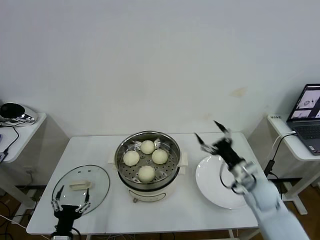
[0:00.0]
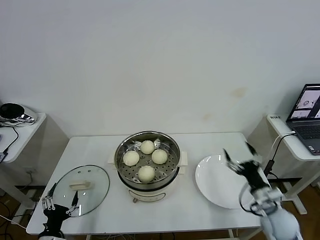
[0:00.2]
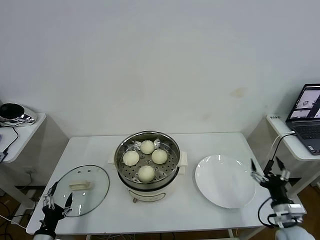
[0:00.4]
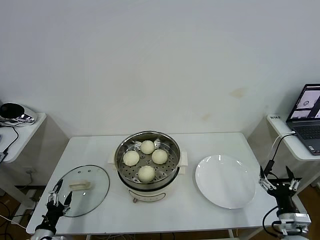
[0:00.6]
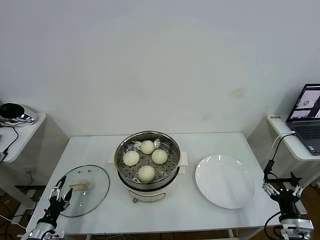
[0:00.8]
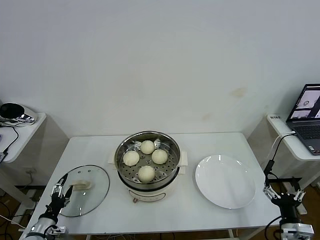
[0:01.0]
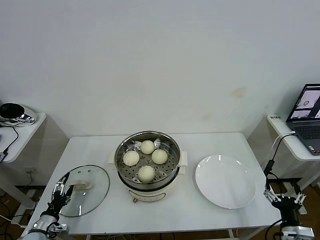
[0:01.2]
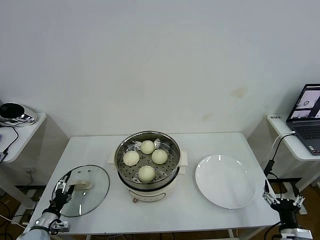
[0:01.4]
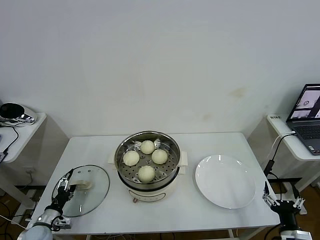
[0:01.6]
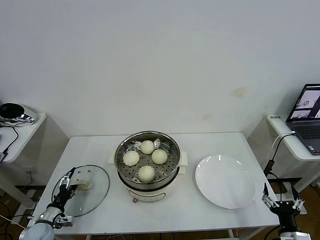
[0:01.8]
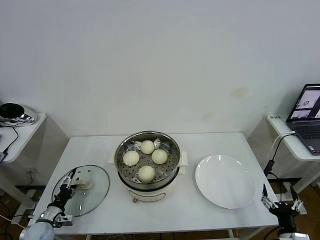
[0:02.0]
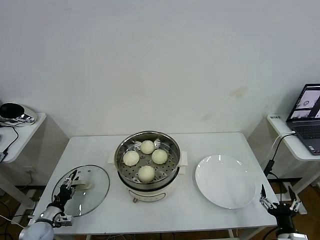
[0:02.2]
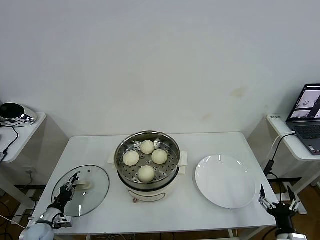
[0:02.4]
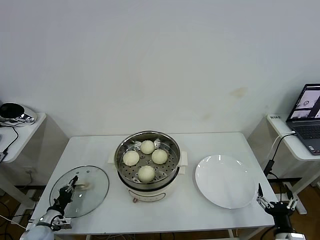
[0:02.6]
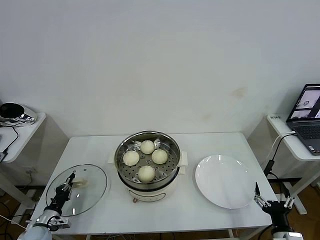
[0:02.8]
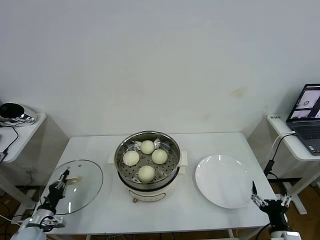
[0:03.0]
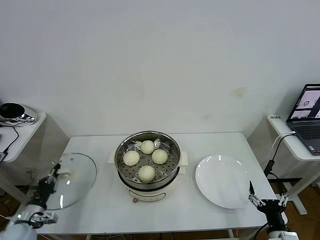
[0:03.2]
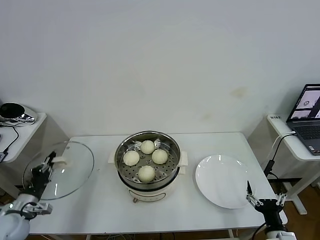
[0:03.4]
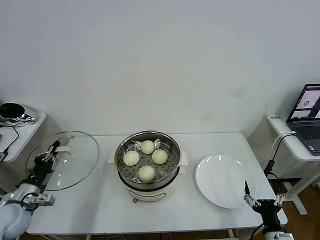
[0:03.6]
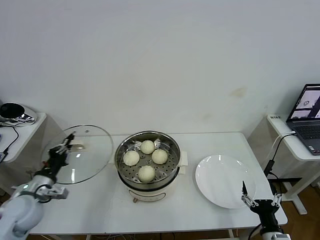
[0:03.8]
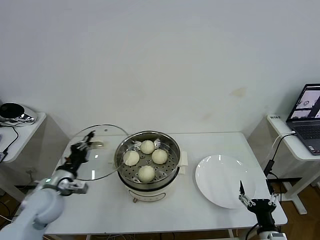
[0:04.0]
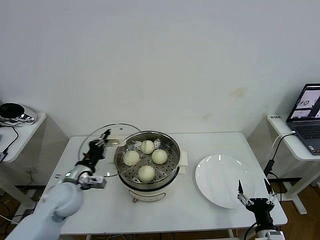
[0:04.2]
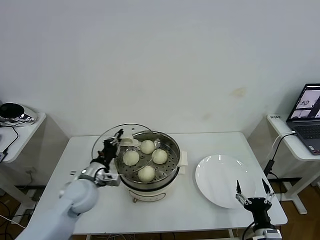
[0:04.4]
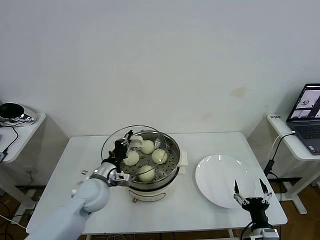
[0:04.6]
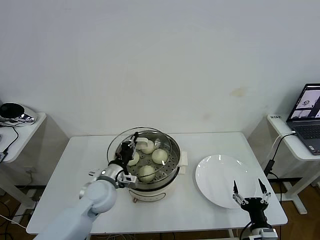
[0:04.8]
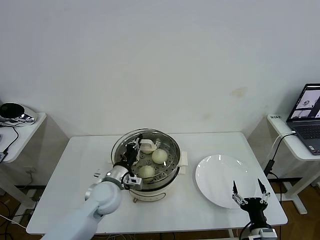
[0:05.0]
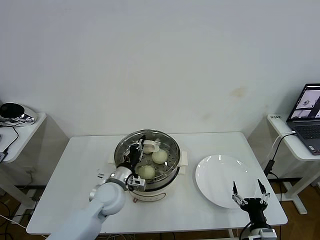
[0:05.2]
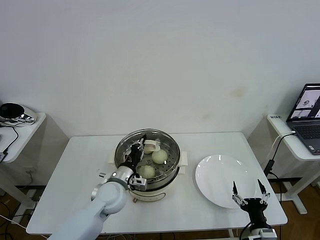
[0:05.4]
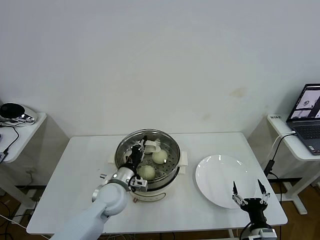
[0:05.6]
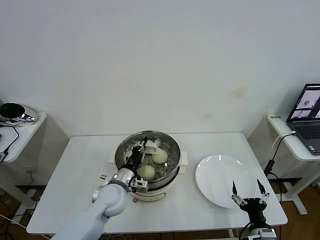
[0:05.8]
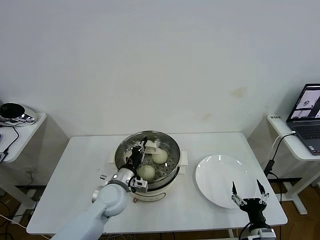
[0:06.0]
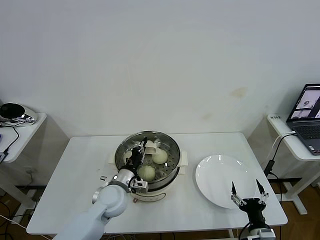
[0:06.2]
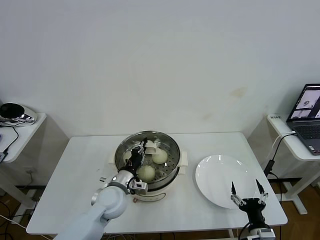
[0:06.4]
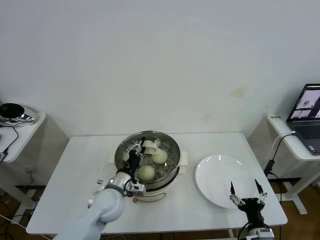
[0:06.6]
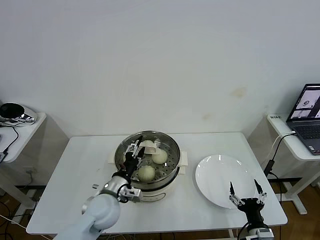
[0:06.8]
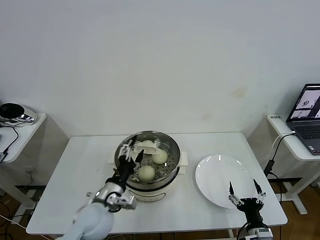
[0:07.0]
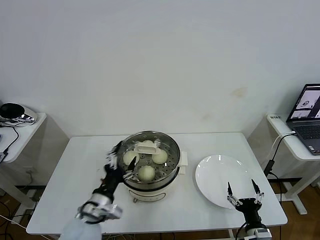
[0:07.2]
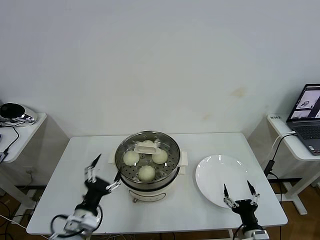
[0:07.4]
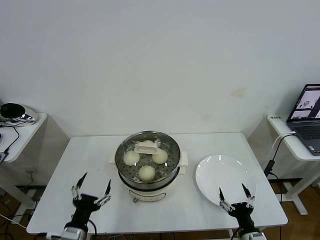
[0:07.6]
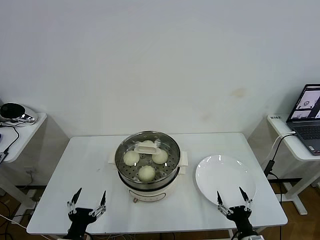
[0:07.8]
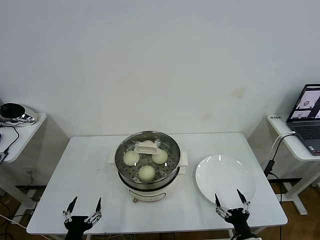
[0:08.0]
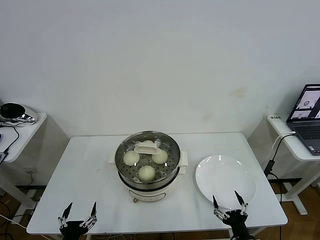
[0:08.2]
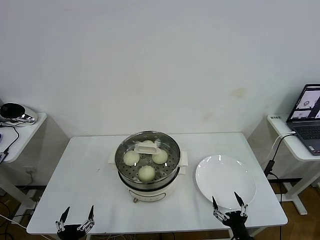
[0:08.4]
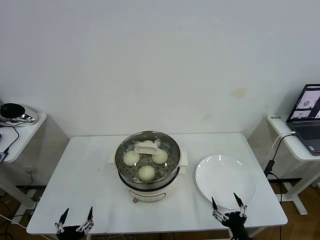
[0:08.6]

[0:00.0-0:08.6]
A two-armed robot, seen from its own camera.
Task of the whole recording: take steamed baozi put them in steamer then cover it.
Step, 0:00.0 to 0:02.6: Grasp the pot lid with left gripper.
Step, 0:02.8 to 0:06.6: Place the pot lid on the steamer with left gripper.
0:00.0 to 0:01.4: The right gripper heads backward, downward and to the right, covering roughly 25 cm. Meanwhile the left gripper goes some 20 cm to the left, forward and downward.
0:01.4 to 0:02.8: The left gripper closes.
0:02.8 to 0:04.4: The left gripper heads upward and to the right, covering roughly 30 cm.
0:04.4 to 0:05.8: The left gripper shifts approximately 10 cm to the right.
0:05.8 to 0:07.2: The left gripper shifts roughly 10 cm backward, and opens.
0:07.2 to 0:08.6: The left gripper is displaced backward, downward and to the left by approximately 20 cm.

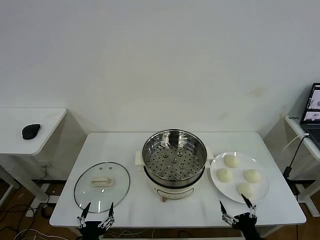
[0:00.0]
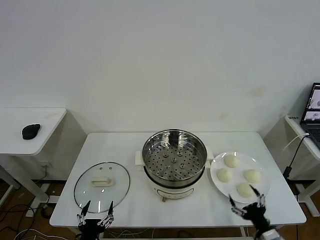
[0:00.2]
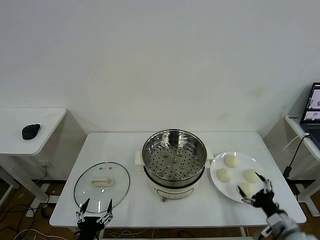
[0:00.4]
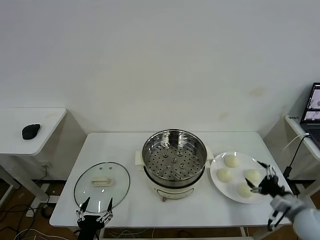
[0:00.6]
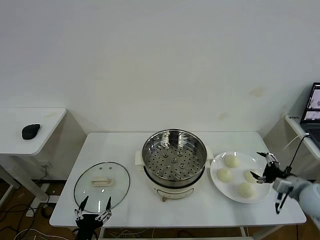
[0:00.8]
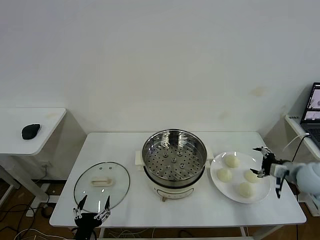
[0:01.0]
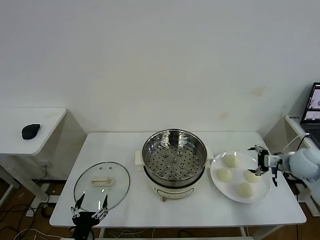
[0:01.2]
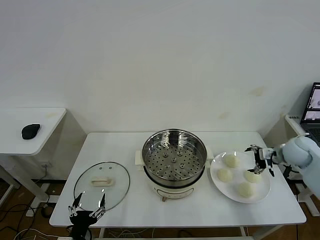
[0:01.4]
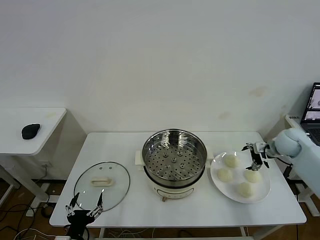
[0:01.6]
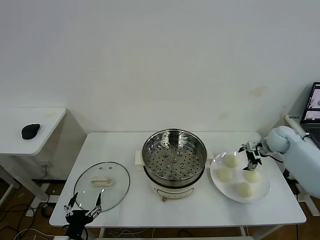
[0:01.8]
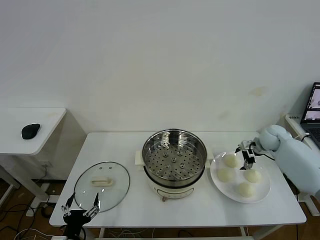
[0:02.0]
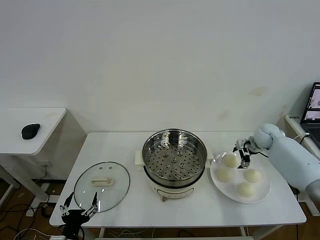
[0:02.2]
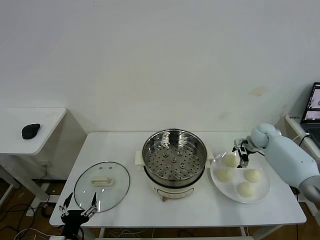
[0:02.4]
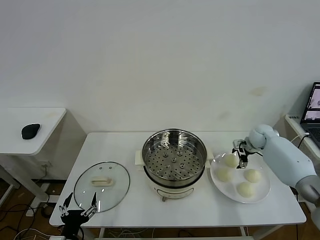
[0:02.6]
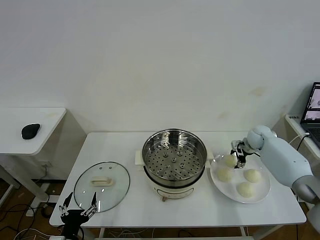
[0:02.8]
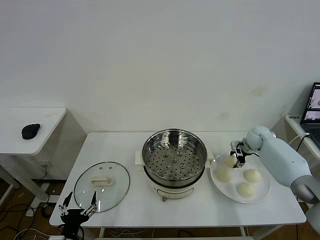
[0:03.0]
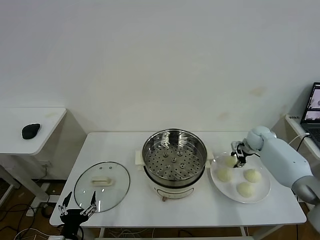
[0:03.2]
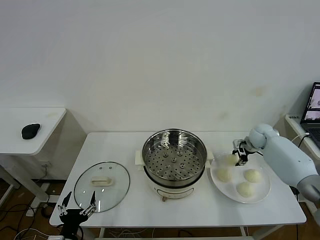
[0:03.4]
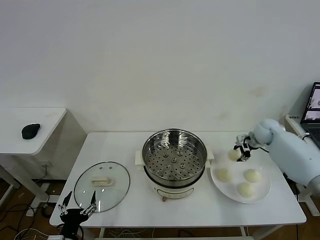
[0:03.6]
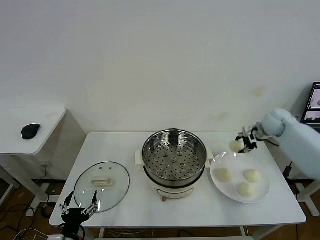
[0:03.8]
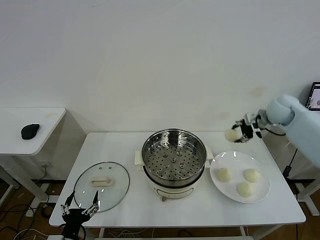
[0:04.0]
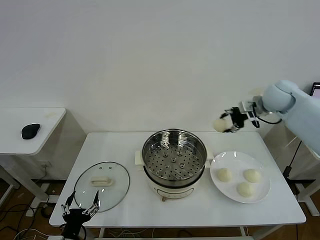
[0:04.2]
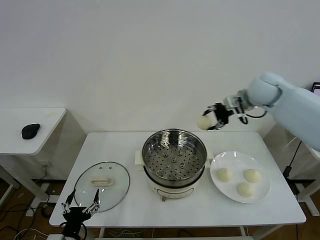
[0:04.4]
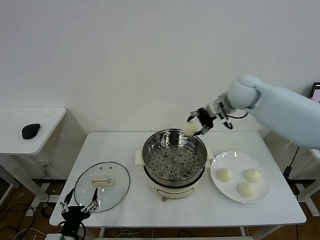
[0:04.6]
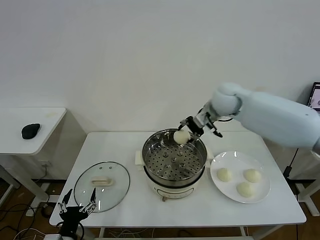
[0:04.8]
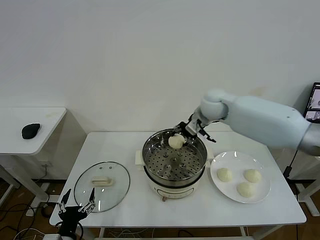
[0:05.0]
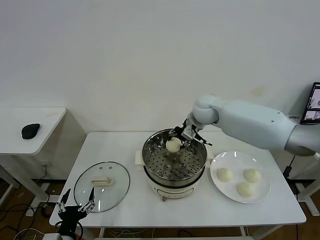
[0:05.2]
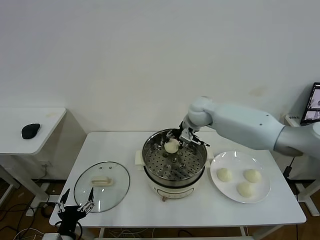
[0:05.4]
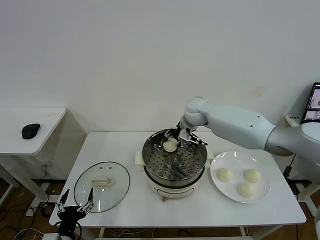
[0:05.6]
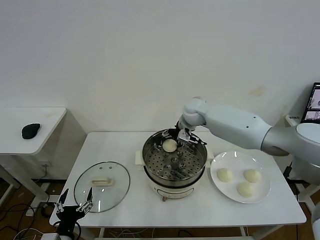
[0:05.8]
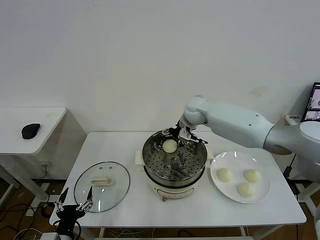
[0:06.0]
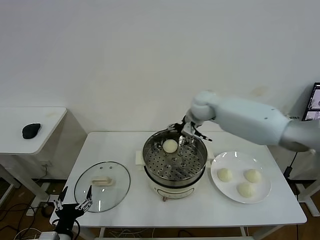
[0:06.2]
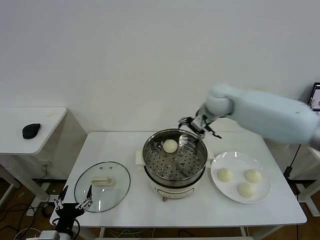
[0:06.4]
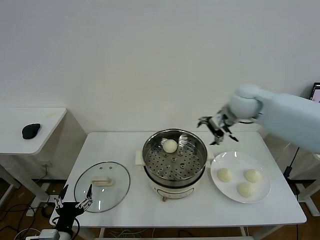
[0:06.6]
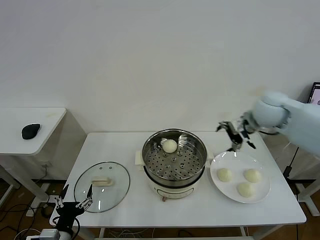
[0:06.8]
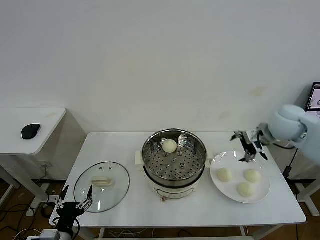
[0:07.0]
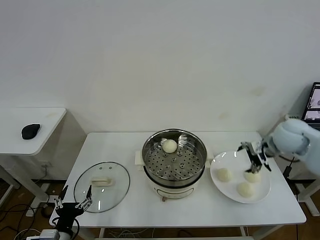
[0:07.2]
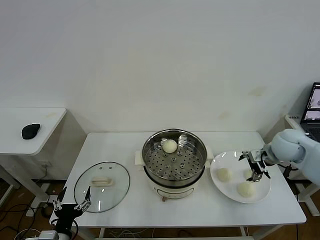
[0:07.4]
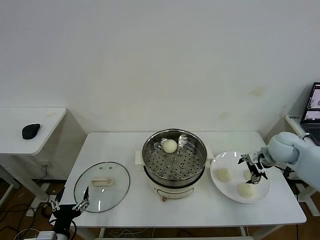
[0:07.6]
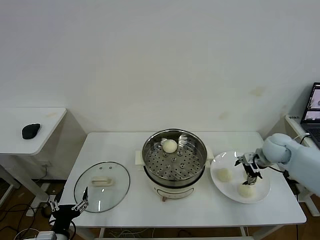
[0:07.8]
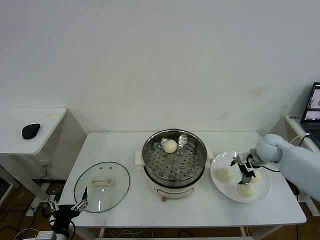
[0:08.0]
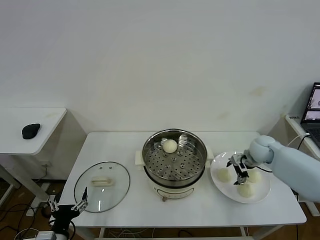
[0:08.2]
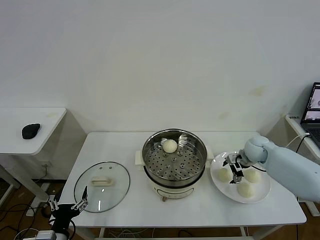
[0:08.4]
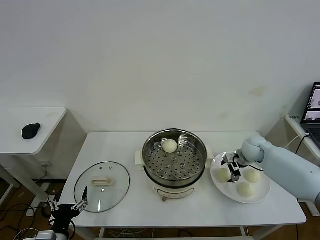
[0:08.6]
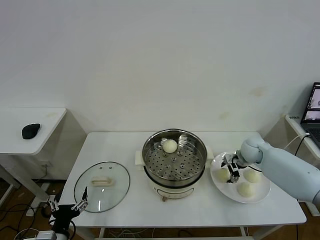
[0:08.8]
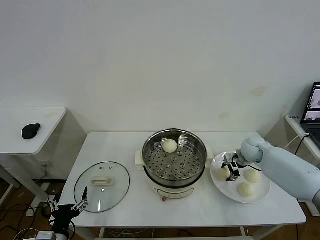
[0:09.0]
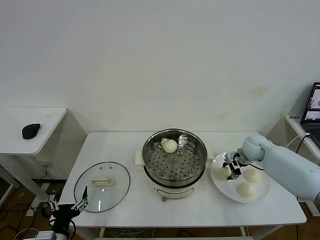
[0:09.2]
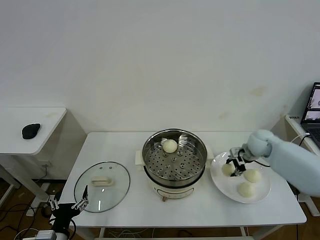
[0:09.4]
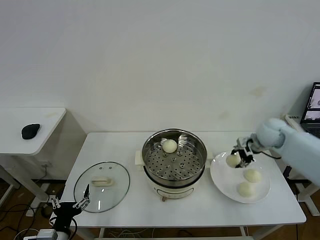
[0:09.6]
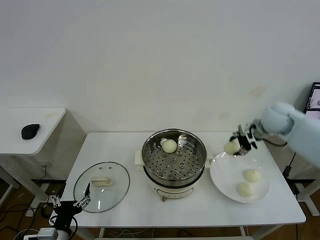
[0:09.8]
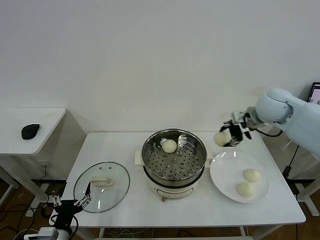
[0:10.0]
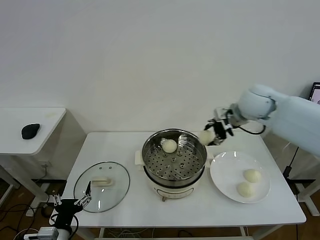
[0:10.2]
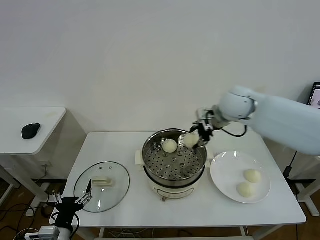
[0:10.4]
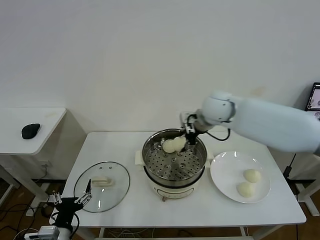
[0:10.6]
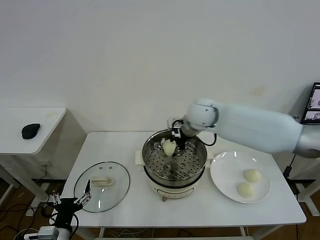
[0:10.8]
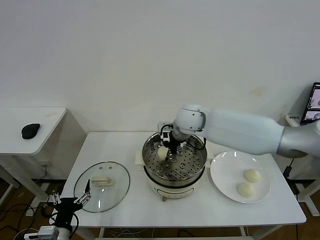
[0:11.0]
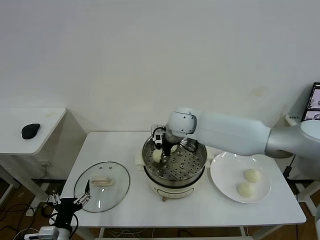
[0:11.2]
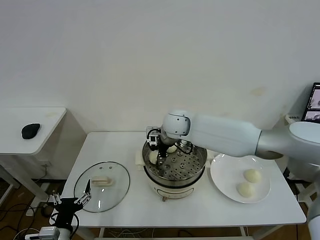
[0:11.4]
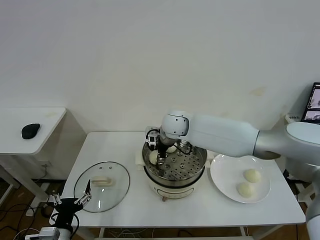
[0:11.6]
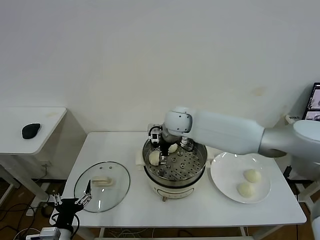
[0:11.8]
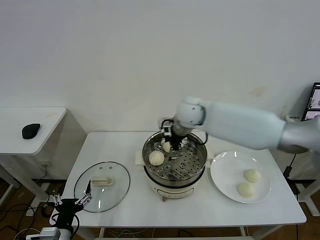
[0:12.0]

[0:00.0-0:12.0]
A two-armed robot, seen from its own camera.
Task of the whole recording: take steamed baozi put them in steamer then cover it.
Step, 0:00.0 to 0:03.0: Grasp the baozi in the plate with right gripper.
Step, 0:03.2 to 0:05.8: Place the baozi on the steamer with right gripper.
Step, 0:06.0 to 0:09.0: Grasp the baozi in the plate with right gripper.
Step, 0:09.2 to 0:11.6: Place the baozi on the steamer with right gripper.
0:01.6 to 0:03.0: The right gripper shifts some 10 cm forward and downward, and closes up.
0:03.0 to 0:04.4: The right gripper is displaced upward and to the left by approximately 30 cm.
0:04.4 to 0:06.0: The right gripper shifts some 15 cm to the left and downward, and opens up.
0:06.0 to 0:07.6: The right gripper travels to the right and backward by roughly 30 cm.
0:07.6 to 0:09.0: The right gripper travels downward and forward by approximately 10 cm, and closes its fingers.
0:09.0 to 0:10.4: The right gripper travels upward and to the left by approximately 25 cm.
0:10.4 to 0:12.0: The right gripper goes about 5 cm to the left, and opens.

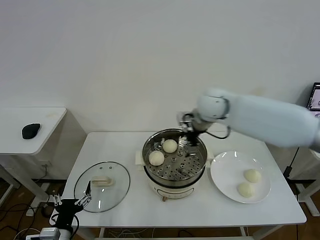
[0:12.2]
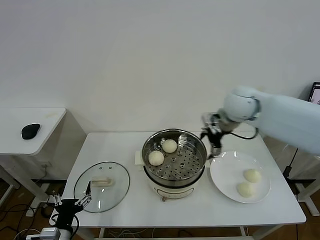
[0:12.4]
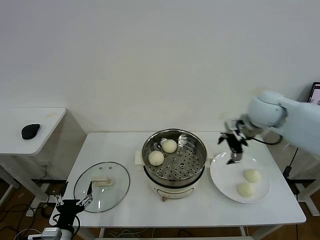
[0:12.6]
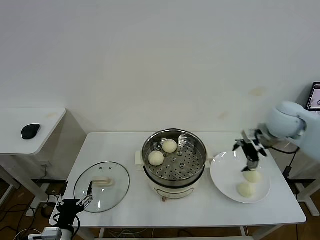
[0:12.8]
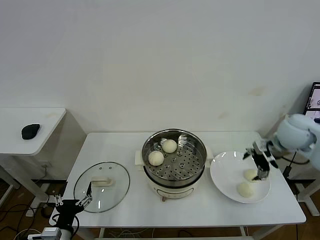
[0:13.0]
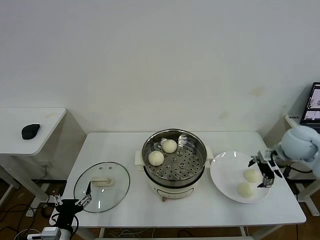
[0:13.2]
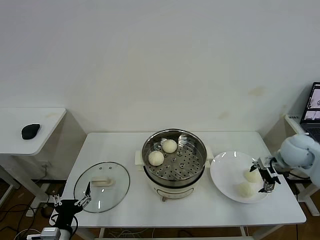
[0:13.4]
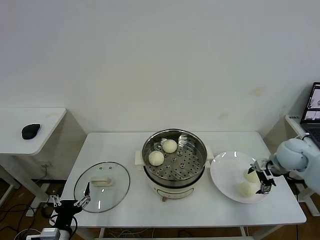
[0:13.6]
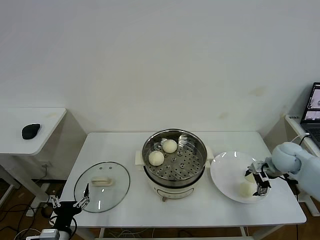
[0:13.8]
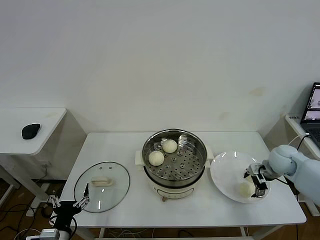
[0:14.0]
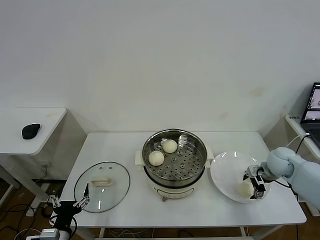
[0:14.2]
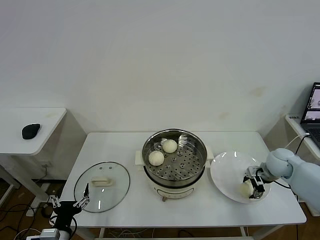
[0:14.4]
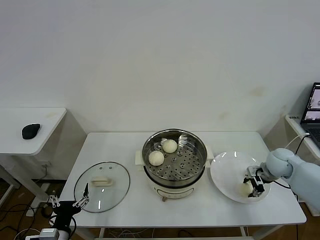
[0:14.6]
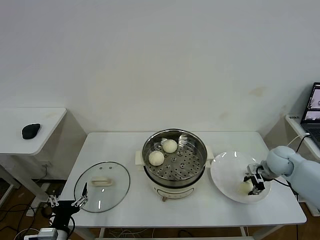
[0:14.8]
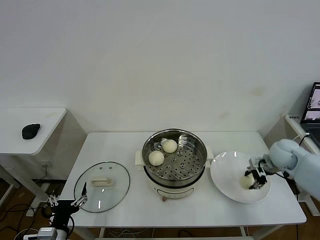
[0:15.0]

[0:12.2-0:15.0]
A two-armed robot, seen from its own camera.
Task of the whole recording: take steamed baozi put them in steamer then cover it.
Step, 0:12.2 to 0:14.6: Grasp the baozi in the plate with right gripper.
0:12.2 to 0:13.6: The right gripper is displaced to the right and downward by roughly 30 cm.
0:13.6 to 0:15.0: The right gripper closes up.
